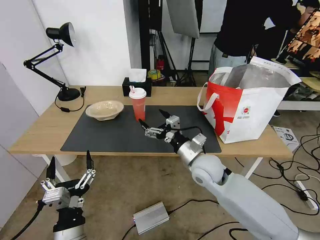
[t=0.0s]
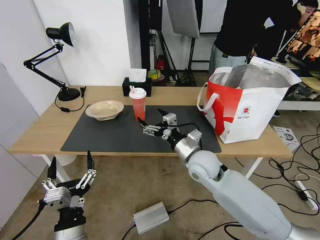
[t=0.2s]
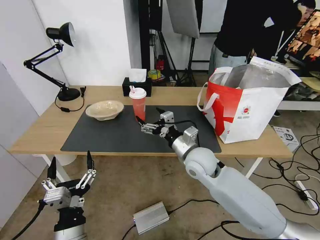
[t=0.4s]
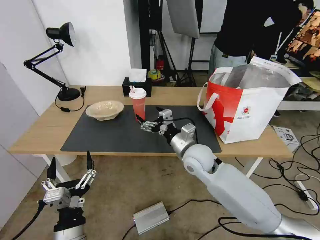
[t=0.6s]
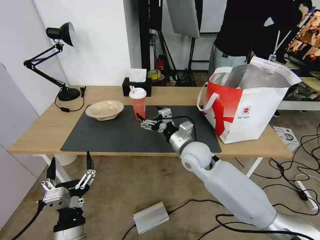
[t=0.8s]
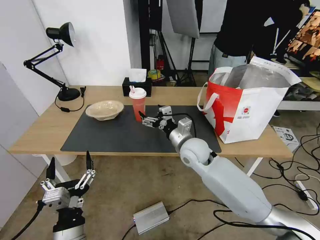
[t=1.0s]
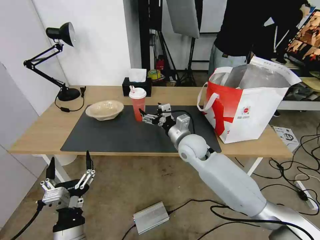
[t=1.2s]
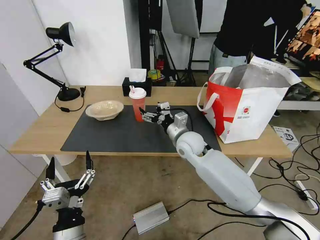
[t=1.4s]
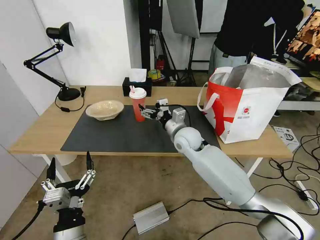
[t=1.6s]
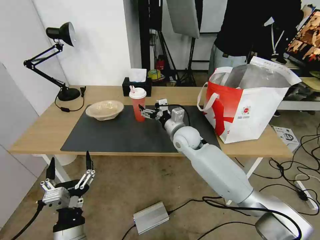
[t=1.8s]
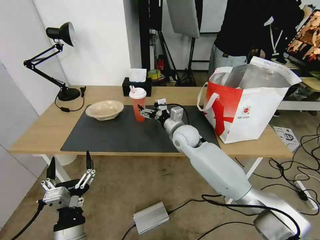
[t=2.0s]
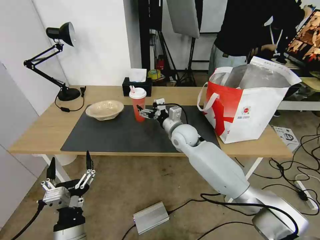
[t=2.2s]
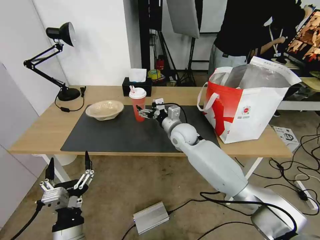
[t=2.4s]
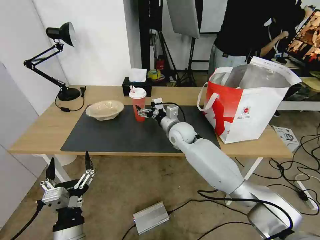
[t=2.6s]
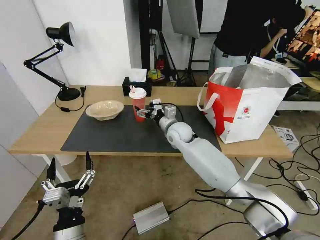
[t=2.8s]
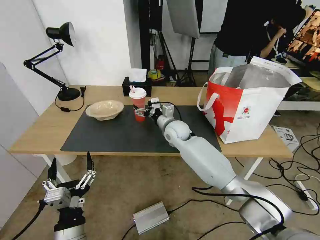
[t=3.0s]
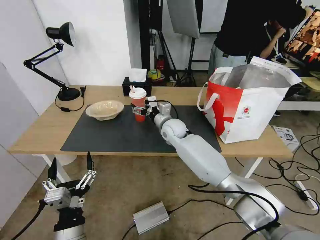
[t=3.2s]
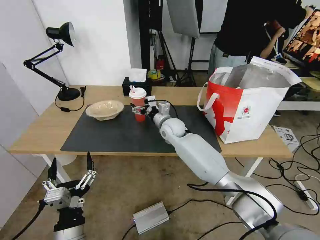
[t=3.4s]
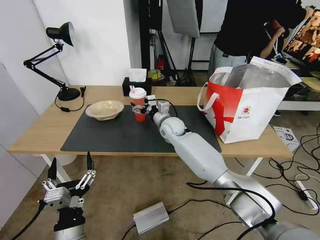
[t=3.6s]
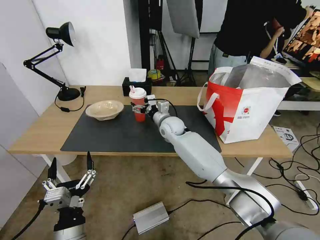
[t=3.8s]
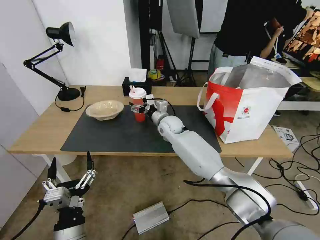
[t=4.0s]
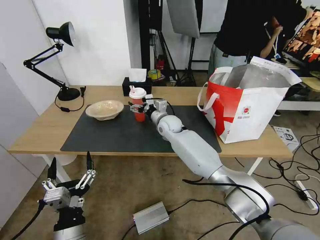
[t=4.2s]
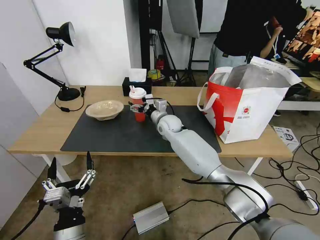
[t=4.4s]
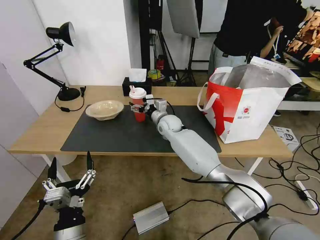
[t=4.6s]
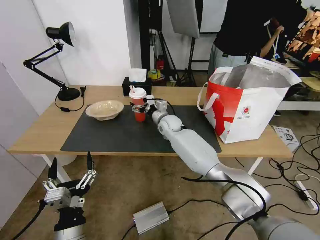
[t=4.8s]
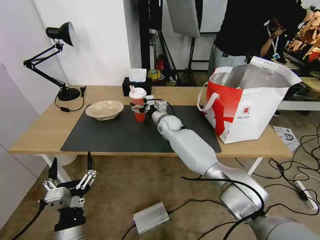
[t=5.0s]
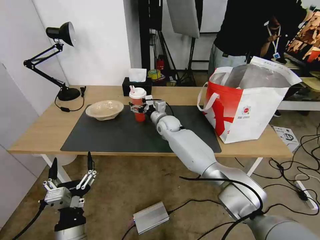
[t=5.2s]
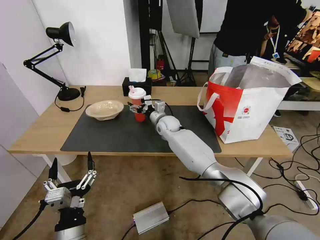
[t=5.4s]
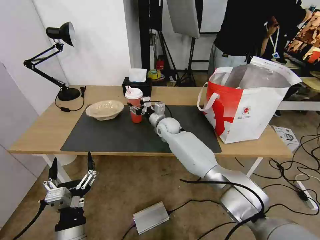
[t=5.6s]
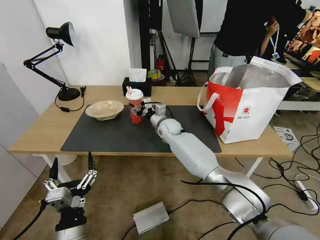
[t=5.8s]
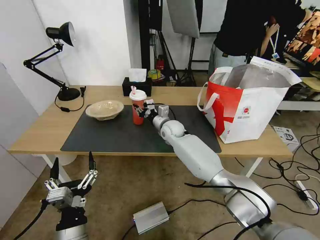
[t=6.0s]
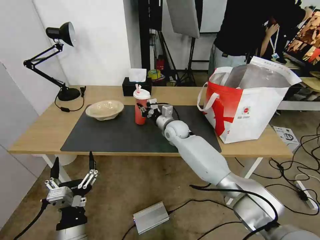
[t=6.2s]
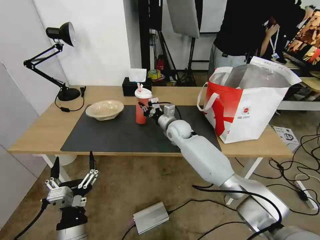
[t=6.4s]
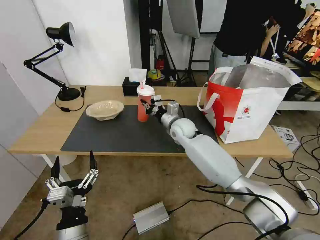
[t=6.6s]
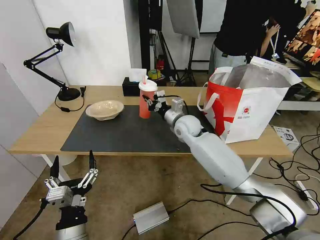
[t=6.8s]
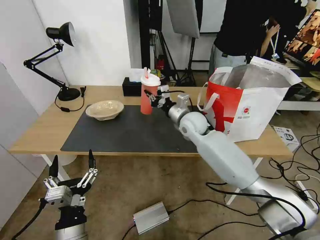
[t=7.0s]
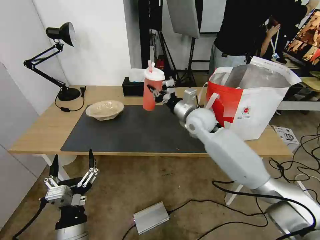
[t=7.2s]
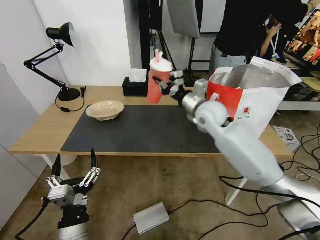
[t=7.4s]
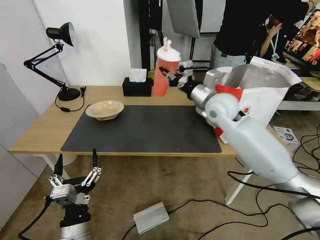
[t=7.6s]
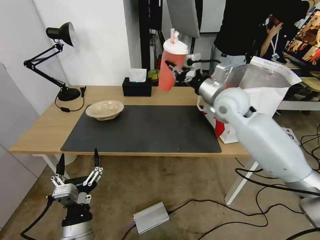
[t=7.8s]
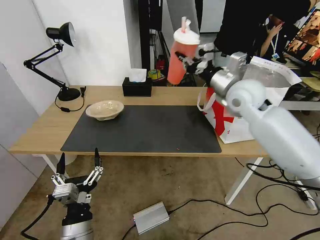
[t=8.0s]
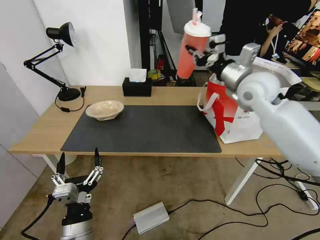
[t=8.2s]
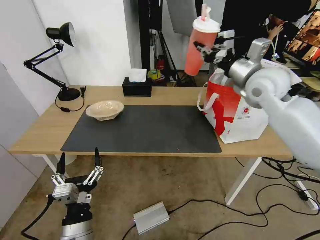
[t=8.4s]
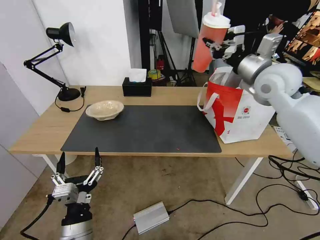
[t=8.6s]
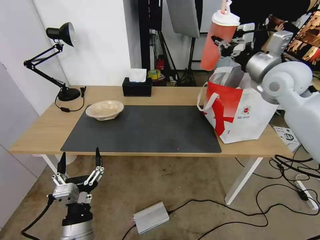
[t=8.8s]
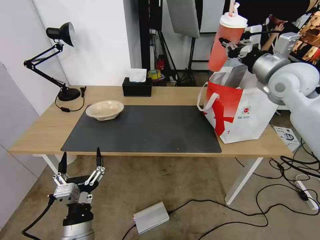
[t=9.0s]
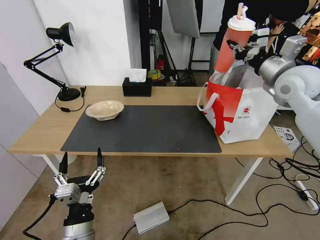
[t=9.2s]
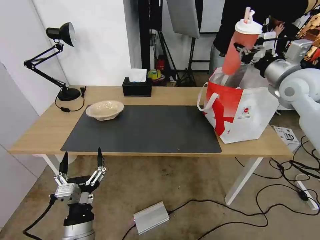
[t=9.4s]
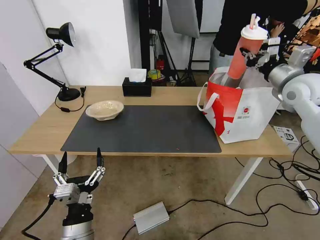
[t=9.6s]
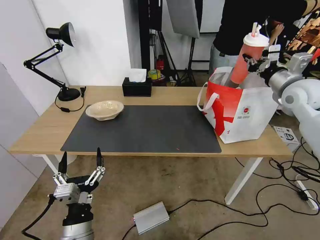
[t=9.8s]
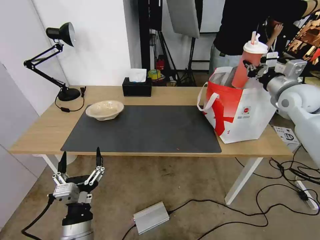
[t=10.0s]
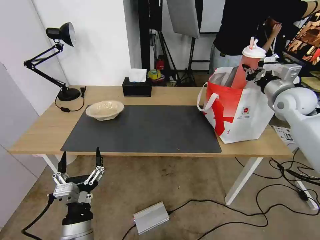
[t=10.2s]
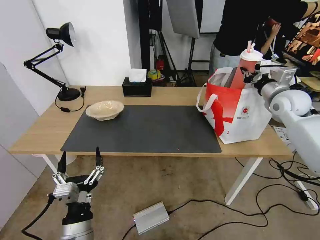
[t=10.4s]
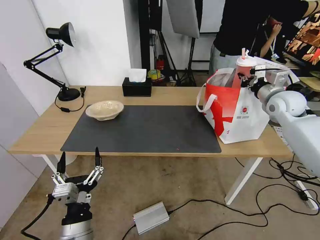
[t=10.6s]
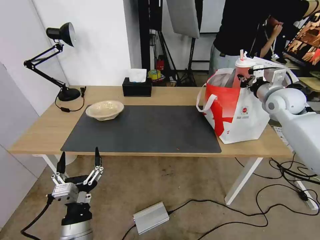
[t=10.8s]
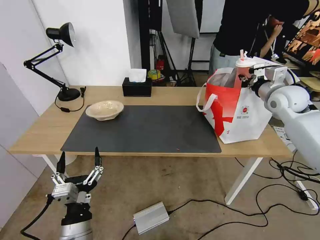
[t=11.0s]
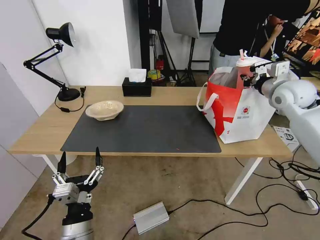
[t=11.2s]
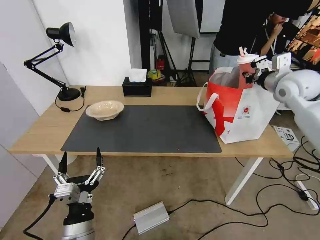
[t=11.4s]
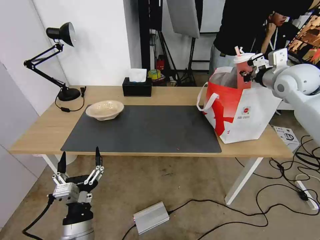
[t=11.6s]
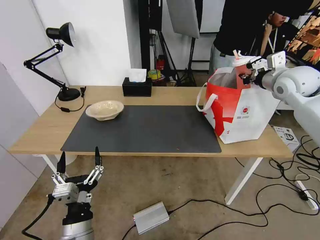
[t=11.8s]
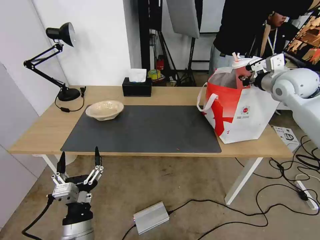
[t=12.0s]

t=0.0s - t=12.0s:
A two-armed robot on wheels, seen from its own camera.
Task of the whole recording: Pick up the trash from the table and place it into the takeout bag.
t=0.0s - t=1.6s: The right gripper is displaced forward by about 10 cm.
t=1.6s - t=3.0s: The right gripper heads forward, covering about 5 cm.
t=3.0s - t=4.4s: The grippers stay close to where they were, moving slightly.
t=4.4s - t=6.0s: The right gripper closes its fingers.
t=6.0s - t=7.6s: The right gripper is displaced upward, to the right and backward by approximately 25 cm.
t=7.6s - t=9.0s: The right gripper shifts some 20 cm to the right and upward.
t=9.0s - t=10.4s: The right gripper shifts roughly 10 cm downward and to the right.
t=10.4s - t=12.0s: The right gripper heads upward, covering some 5 cm.

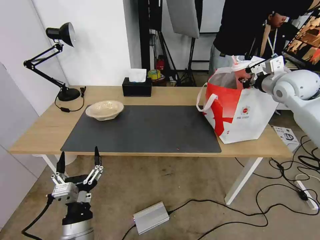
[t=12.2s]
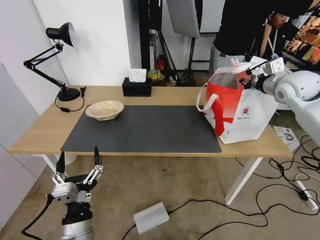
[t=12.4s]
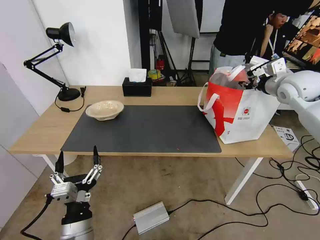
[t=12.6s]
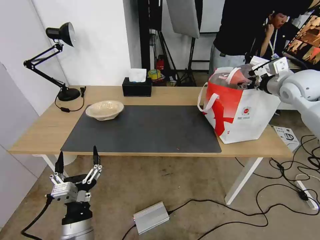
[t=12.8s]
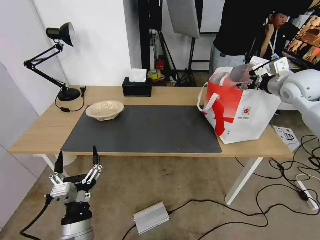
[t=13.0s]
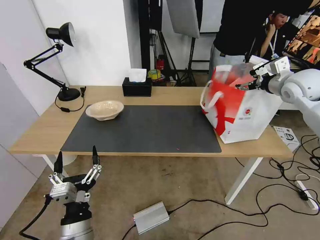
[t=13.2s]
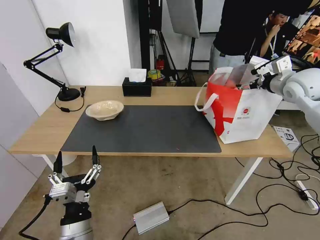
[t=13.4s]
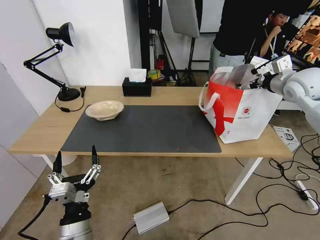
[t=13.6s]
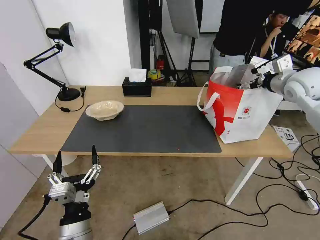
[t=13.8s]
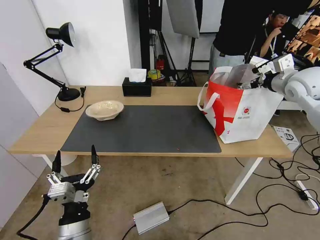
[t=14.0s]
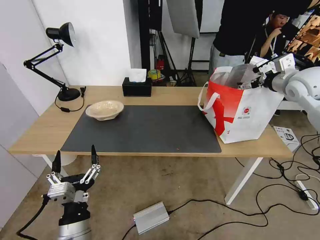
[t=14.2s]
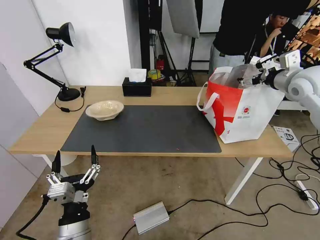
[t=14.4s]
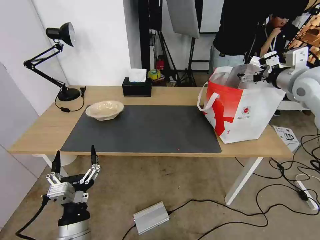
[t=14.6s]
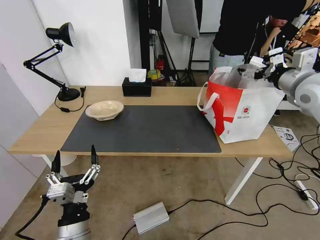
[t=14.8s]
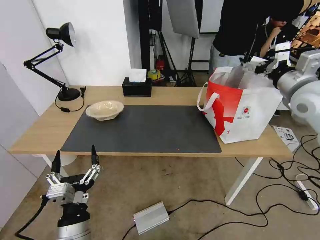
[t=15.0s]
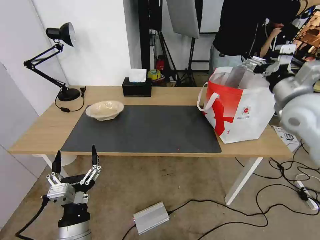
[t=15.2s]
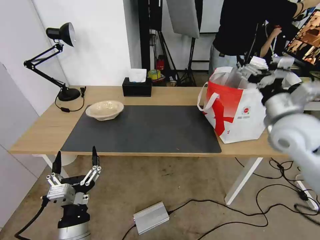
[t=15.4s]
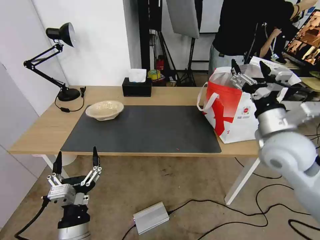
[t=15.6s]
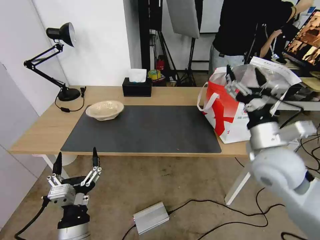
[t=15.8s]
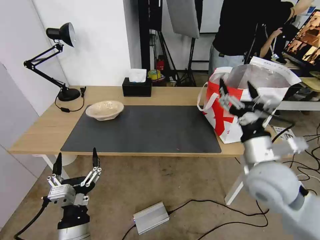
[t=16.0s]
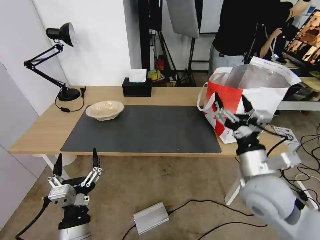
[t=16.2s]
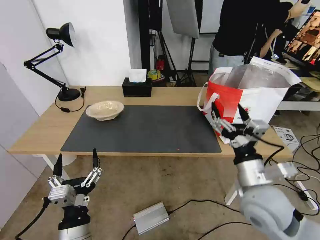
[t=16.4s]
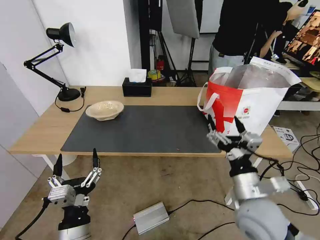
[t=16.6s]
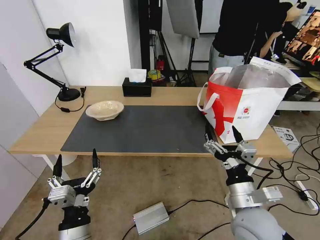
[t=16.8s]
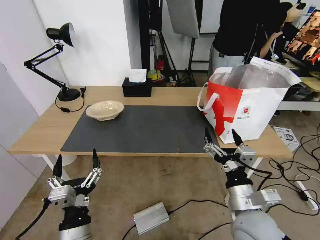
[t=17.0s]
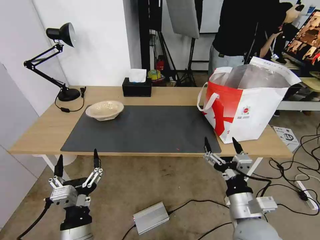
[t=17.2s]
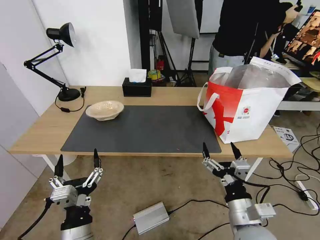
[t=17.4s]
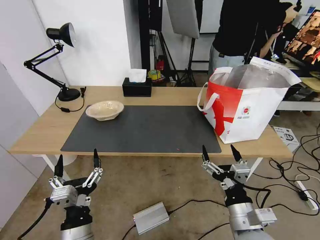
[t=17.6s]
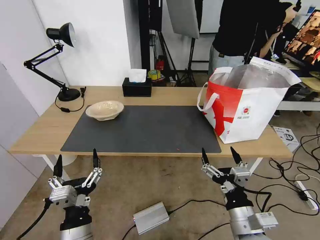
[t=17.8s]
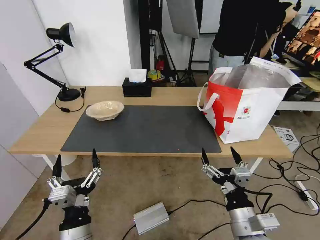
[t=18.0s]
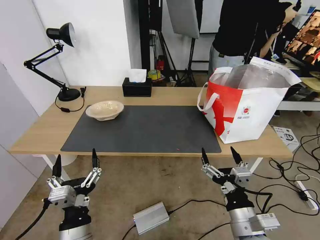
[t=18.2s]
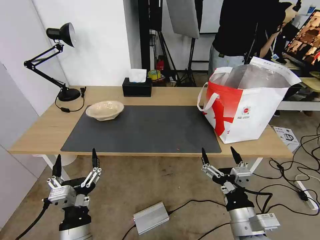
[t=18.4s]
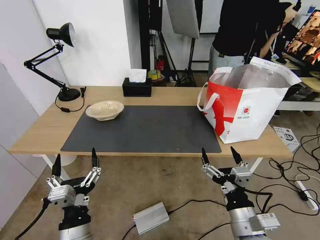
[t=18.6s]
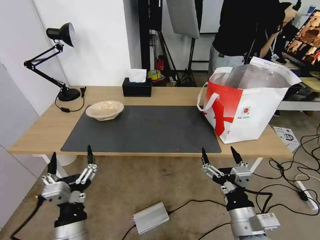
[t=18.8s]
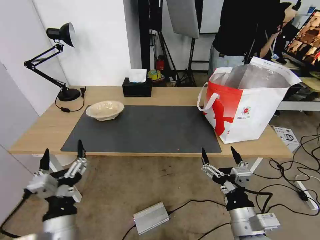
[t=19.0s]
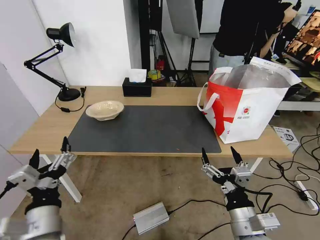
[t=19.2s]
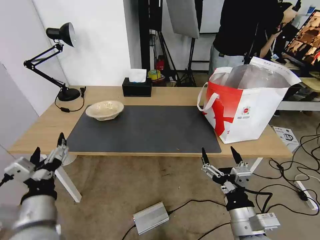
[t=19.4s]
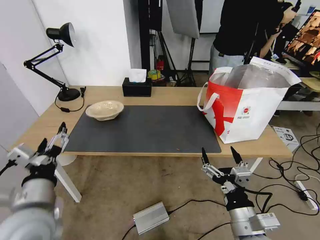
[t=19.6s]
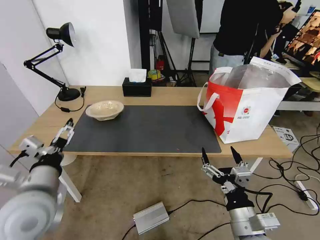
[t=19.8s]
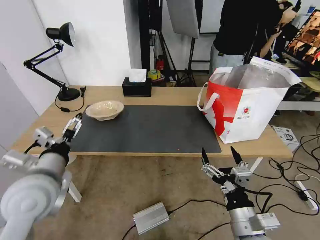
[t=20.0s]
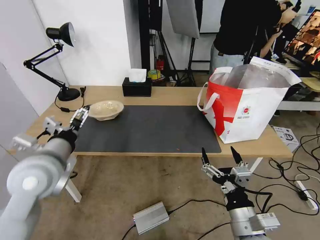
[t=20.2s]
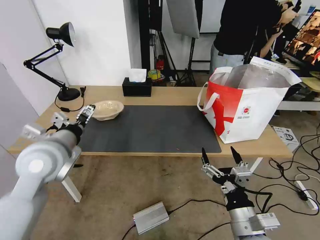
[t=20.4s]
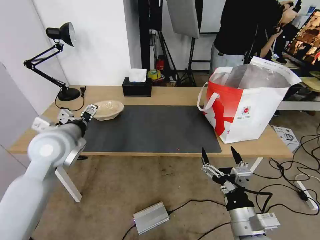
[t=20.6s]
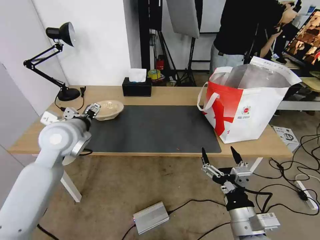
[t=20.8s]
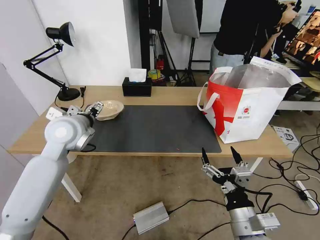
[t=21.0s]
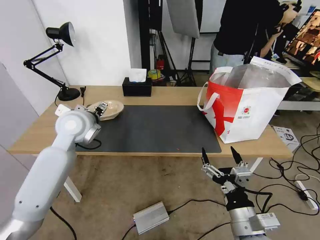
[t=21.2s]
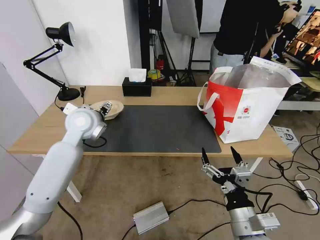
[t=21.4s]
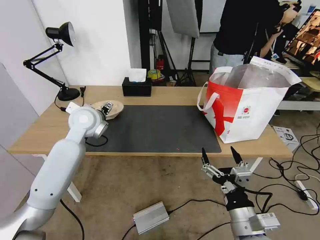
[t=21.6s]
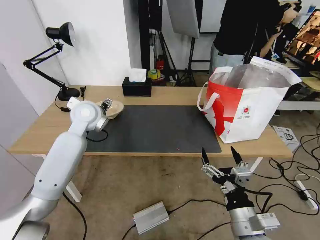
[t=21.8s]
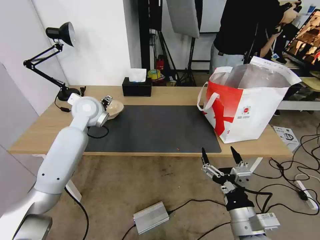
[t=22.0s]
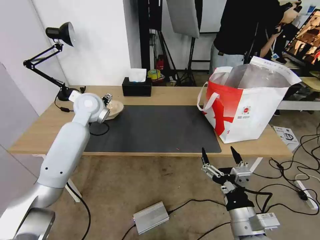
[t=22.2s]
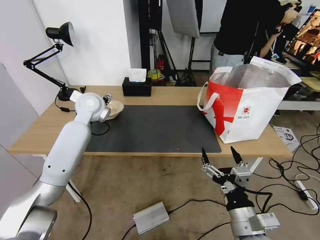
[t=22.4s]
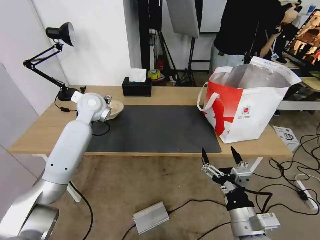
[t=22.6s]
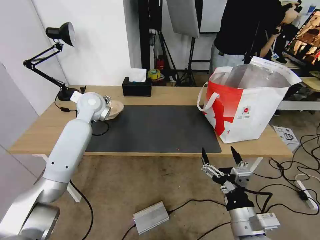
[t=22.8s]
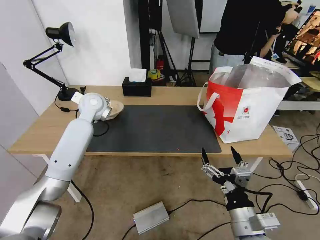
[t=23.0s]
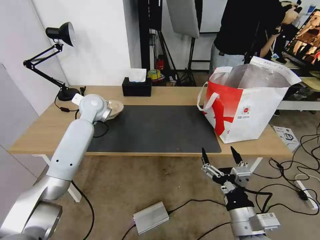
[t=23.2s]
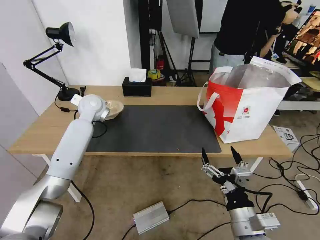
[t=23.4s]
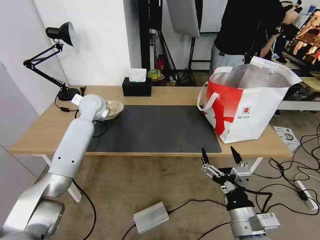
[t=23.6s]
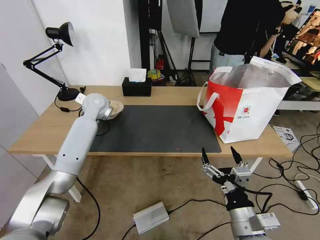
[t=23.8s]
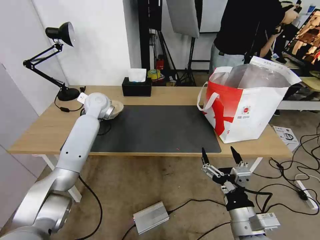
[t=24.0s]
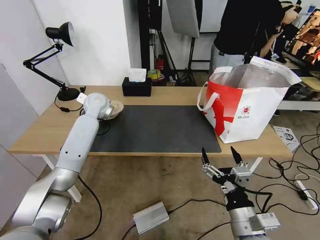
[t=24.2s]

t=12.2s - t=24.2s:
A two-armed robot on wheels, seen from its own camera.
Task of the whole recording: Pick up the trash from the table and place it into the takeout bag.
t=12.2s - t=13.8s: The right gripper opens its fingers.
t=13.8s - t=15.2s: The right gripper travels backward and to the left by about 10 cm.
t=15.2s - t=16.6s: The right gripper travels backward, downward and to the left by approximately 30 cm.
t=16.6s - t=18.2s: The right gripper is displaced backward by about 5 cm.
t=18.2s - t=19.8s: The left gripper is displaced upward, forward and to the left by about 15 cm.
t=19.8s - t=21.2s: The left gripper travels forward by roughly 20 cm.
t=21.2s - t=22.6s: The left gripper is displaced forward by some 10 cm.
t=22.6s - t=24.2s: The left gripper moves forward, roughly 5 cm.
